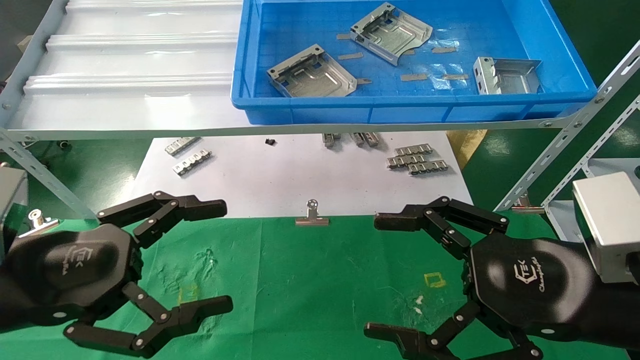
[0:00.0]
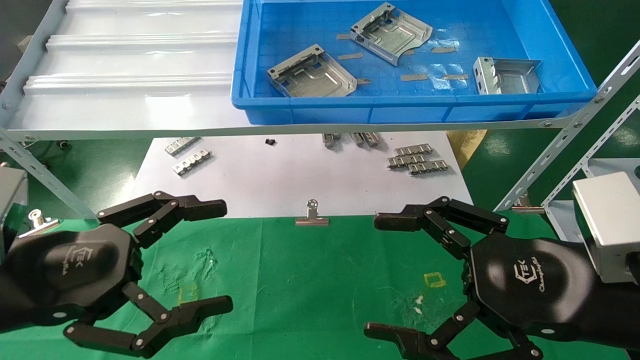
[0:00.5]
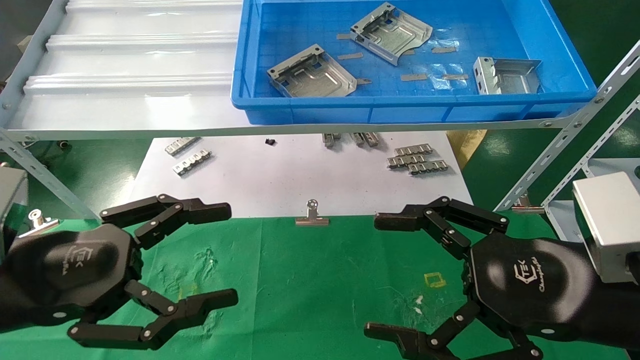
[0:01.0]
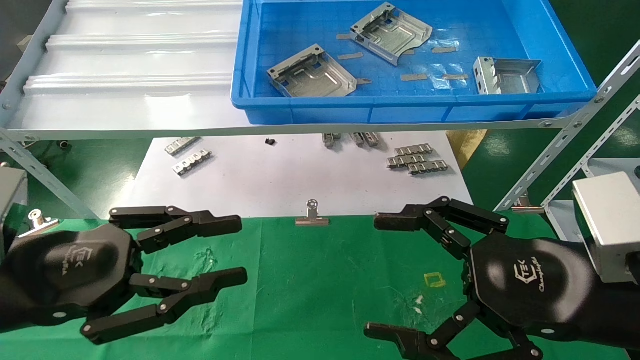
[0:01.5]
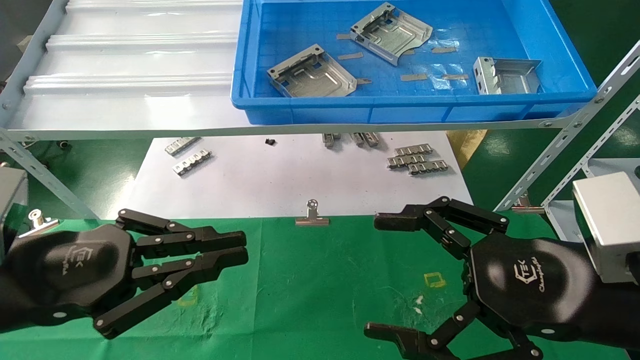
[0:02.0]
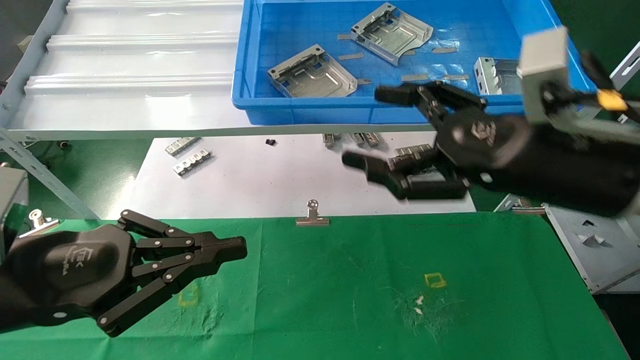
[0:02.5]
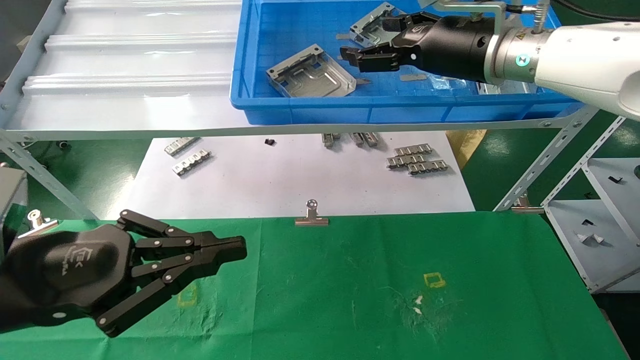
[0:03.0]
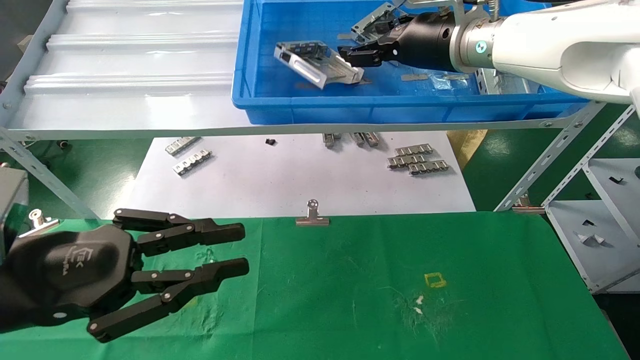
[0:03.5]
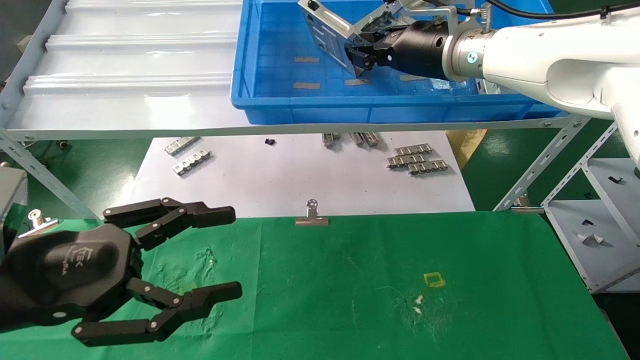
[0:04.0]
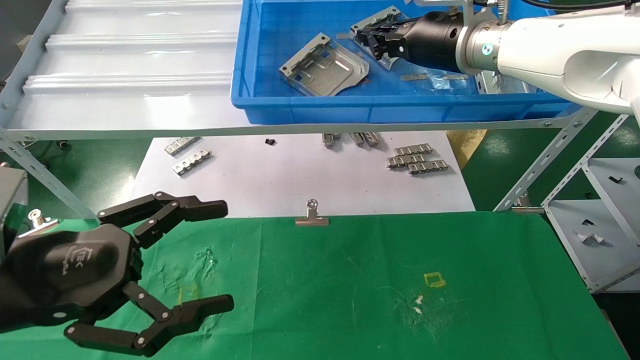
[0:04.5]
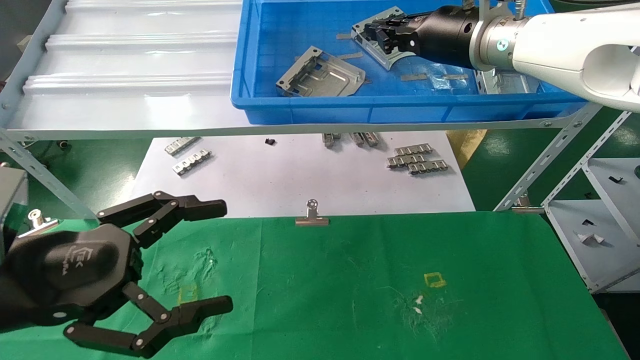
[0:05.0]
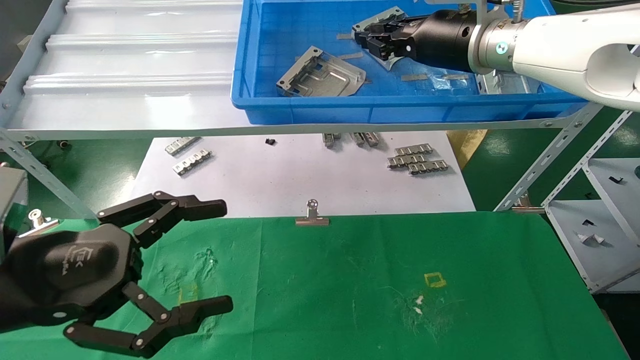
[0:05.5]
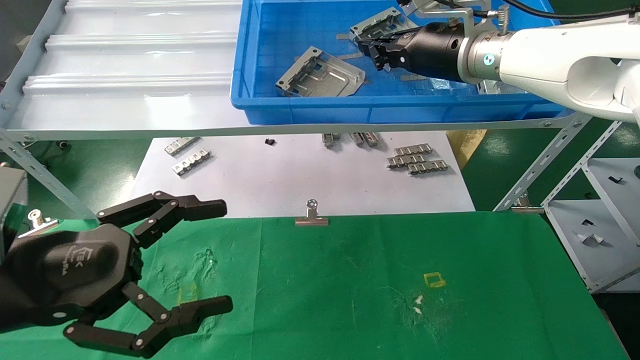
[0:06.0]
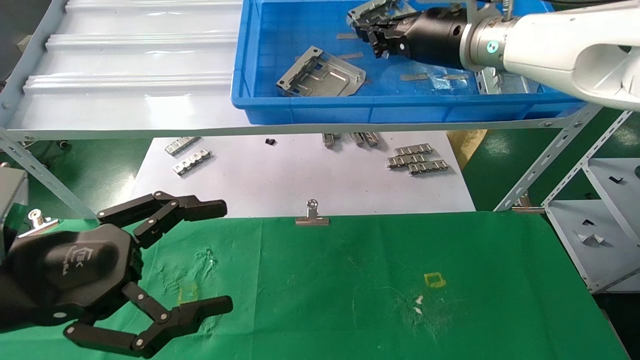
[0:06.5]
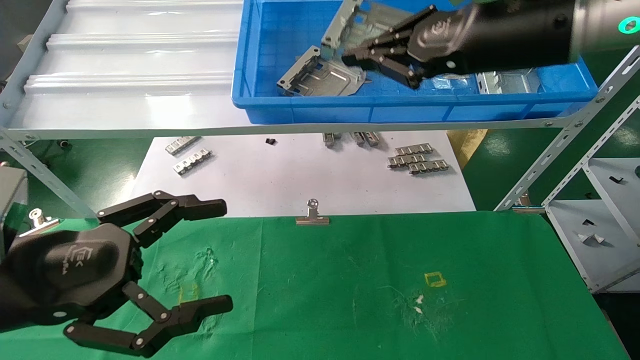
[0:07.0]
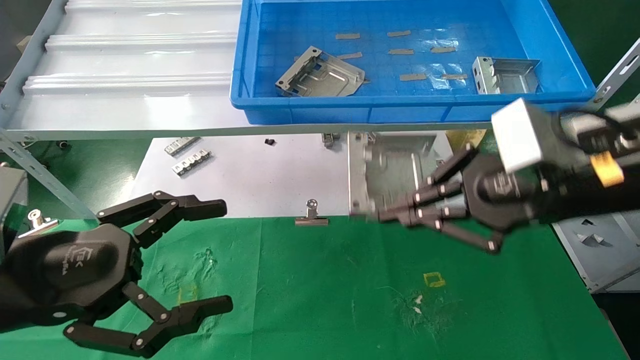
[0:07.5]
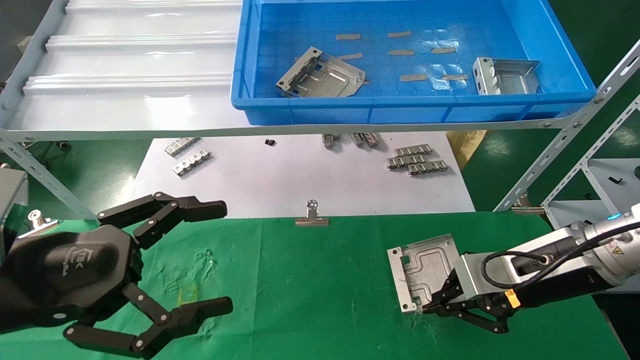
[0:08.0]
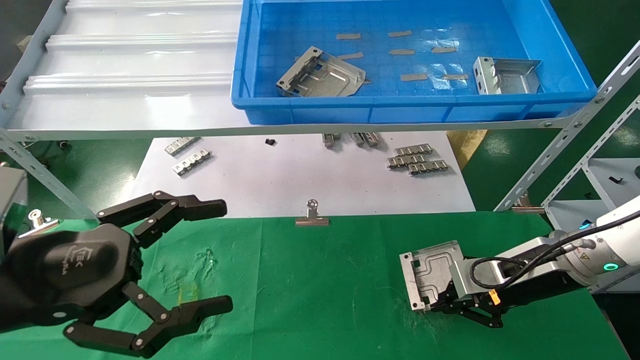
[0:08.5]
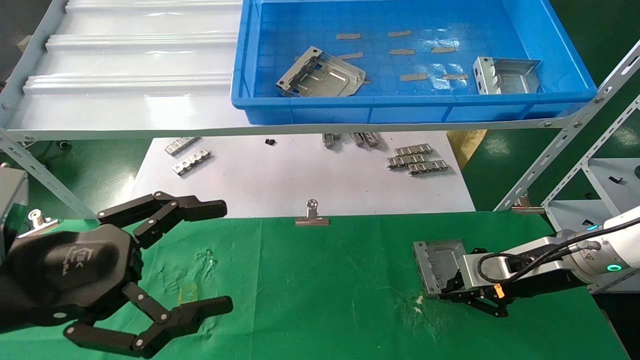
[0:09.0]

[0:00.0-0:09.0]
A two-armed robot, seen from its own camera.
Task of the whole recording: use the mechanical arm to pick up the parts and place them on the table.
Step, 0:02.0 to 0:06.5: Pick up the hard drive bracket from the feeding area.
0:00.0 to 0:02.0: The left gripper closes.
0:02.0 to 0:04.5: The left gripper opens. Meanwhile the right gripper shifts some 30 cm forward and upward, and closes its fingers.
0:04.5 to 0:07.0: The right gripper travels backward by some 10 cm.
0:07.0 to 0:09.0: The right gripper shifts about 30 cm downward and to the right.

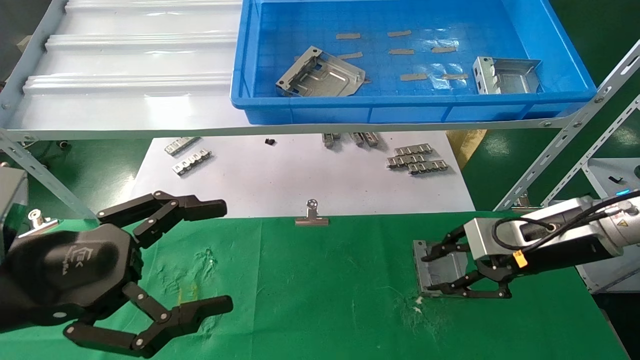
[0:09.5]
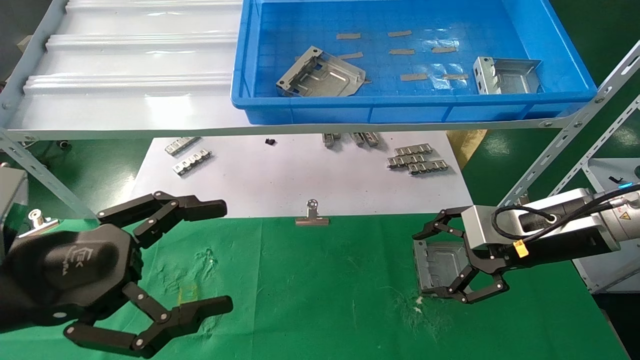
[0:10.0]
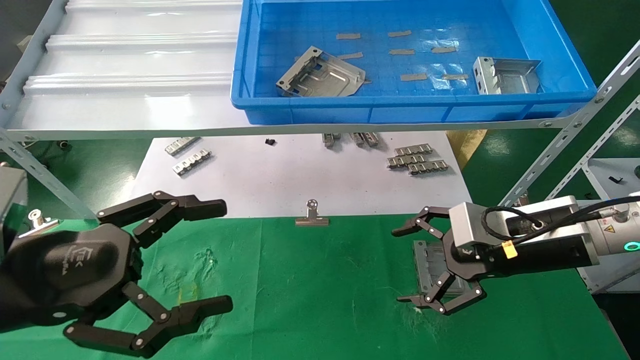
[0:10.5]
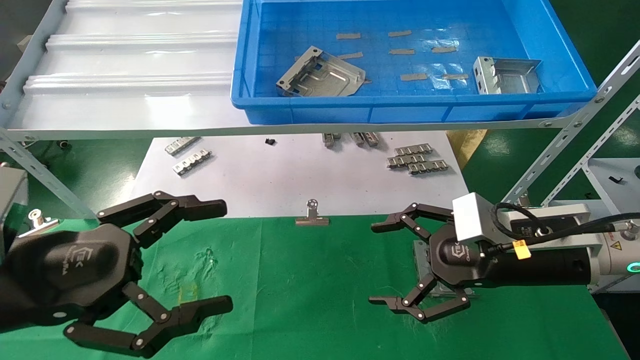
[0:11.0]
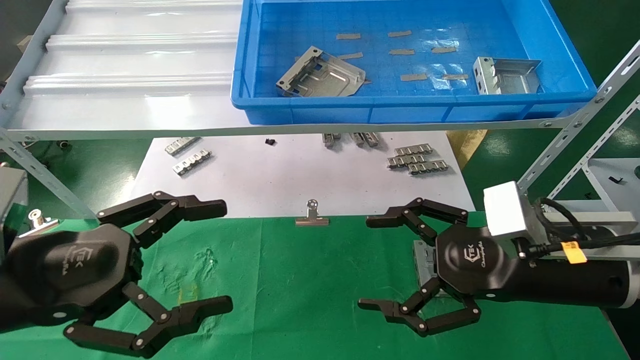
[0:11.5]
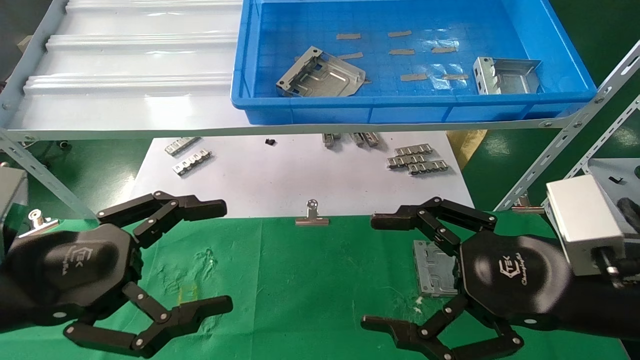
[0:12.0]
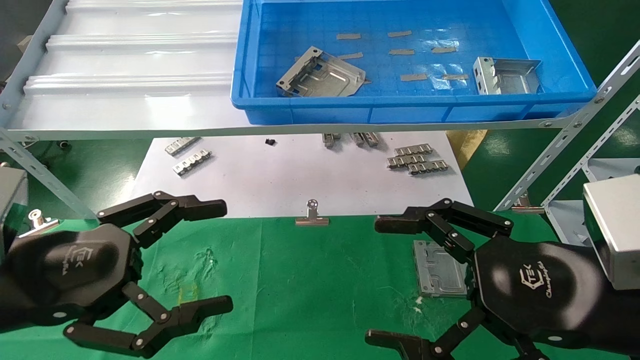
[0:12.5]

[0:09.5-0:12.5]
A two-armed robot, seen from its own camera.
Task of the whole recording: use the mechanical arm to pick up the parts and place them on the table.
0:09.5 to 0:11.0: The right gripper shifts by roughly 5 cm, and opens up.
0:11.0 to 0:12.5: The right gripper shifts some 10 cm backward.
